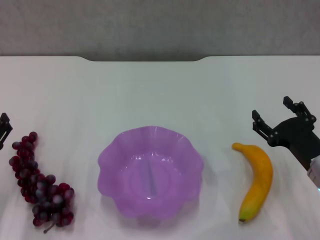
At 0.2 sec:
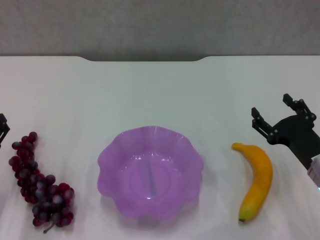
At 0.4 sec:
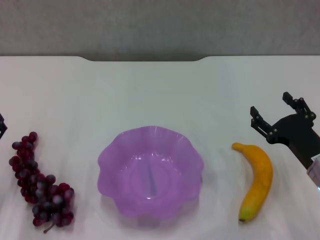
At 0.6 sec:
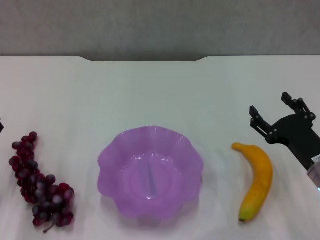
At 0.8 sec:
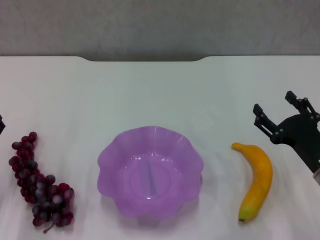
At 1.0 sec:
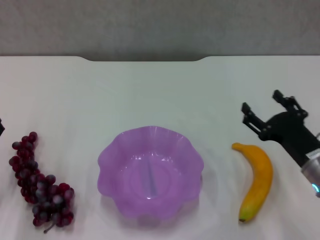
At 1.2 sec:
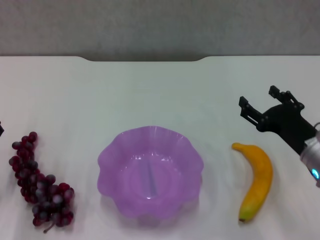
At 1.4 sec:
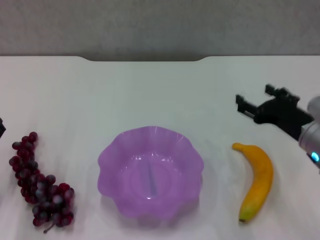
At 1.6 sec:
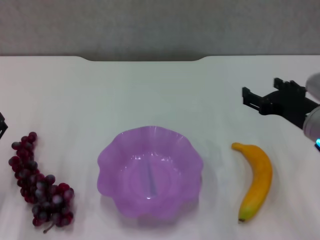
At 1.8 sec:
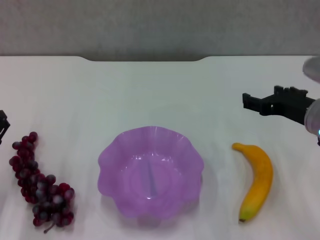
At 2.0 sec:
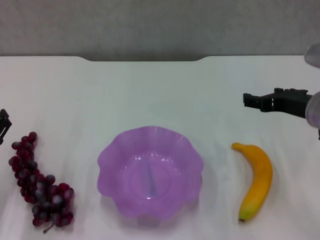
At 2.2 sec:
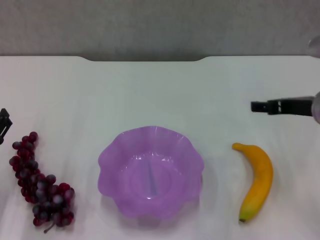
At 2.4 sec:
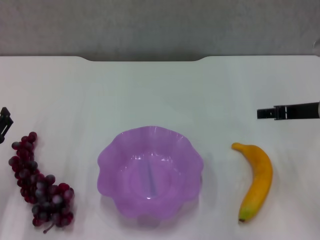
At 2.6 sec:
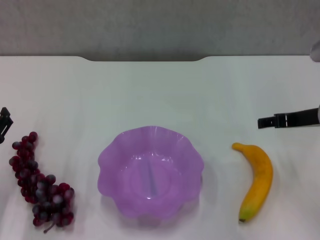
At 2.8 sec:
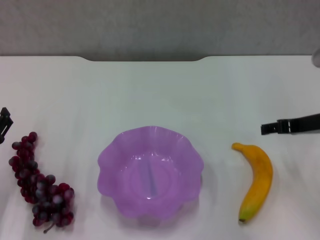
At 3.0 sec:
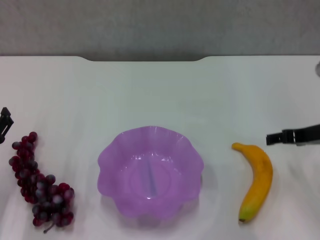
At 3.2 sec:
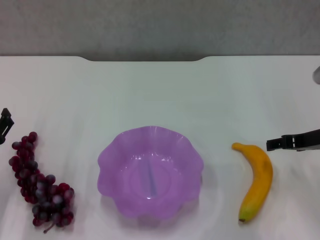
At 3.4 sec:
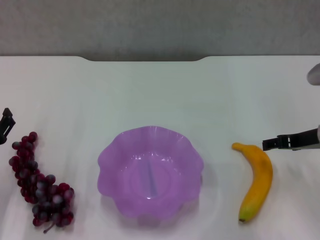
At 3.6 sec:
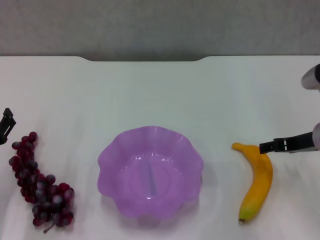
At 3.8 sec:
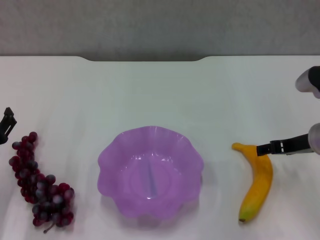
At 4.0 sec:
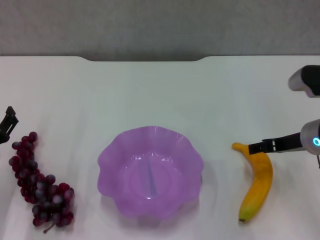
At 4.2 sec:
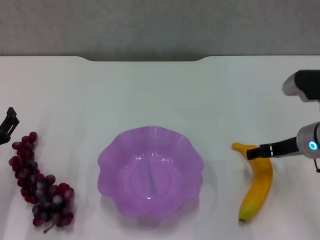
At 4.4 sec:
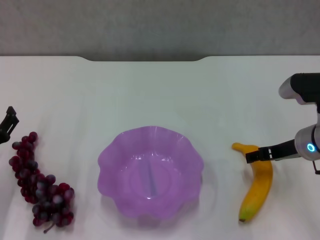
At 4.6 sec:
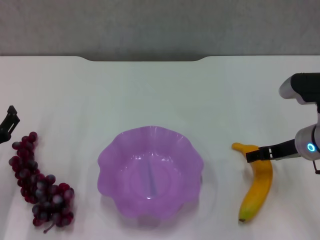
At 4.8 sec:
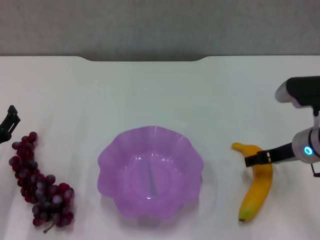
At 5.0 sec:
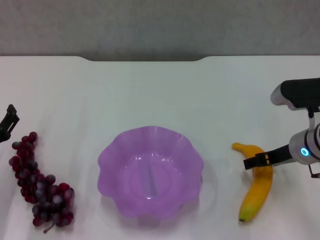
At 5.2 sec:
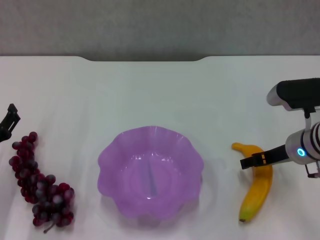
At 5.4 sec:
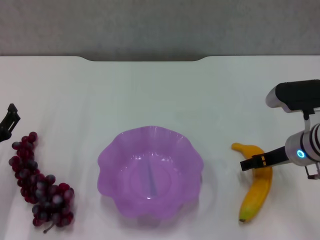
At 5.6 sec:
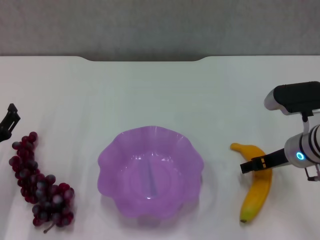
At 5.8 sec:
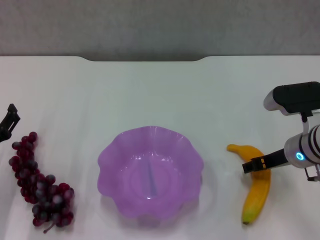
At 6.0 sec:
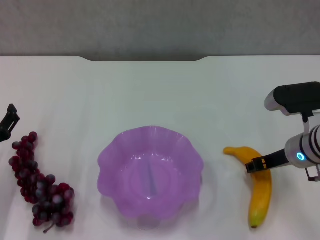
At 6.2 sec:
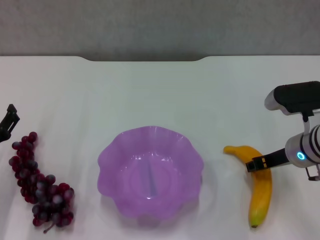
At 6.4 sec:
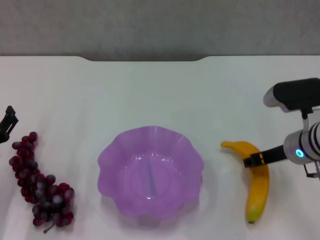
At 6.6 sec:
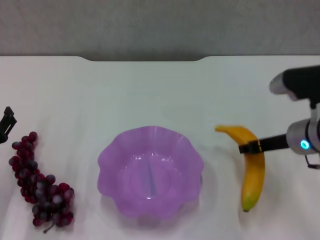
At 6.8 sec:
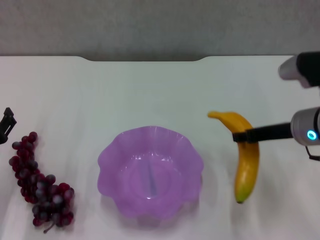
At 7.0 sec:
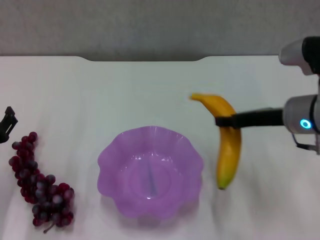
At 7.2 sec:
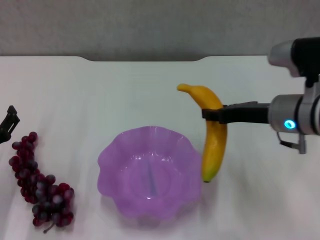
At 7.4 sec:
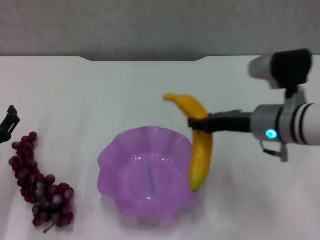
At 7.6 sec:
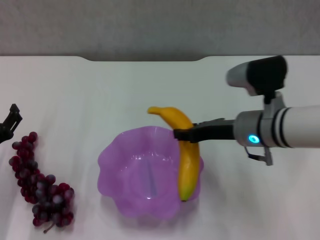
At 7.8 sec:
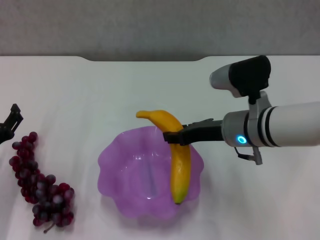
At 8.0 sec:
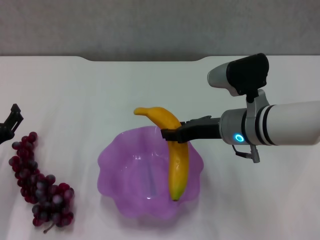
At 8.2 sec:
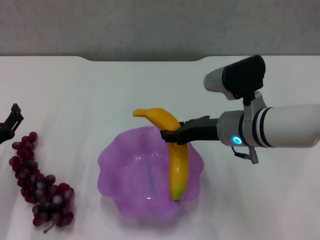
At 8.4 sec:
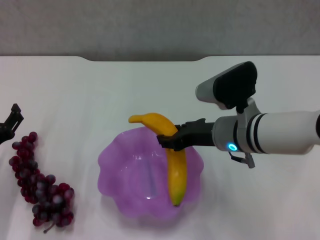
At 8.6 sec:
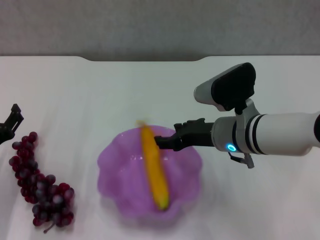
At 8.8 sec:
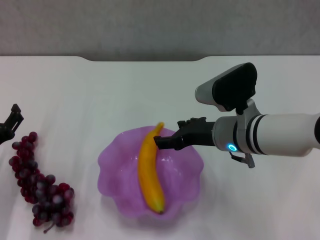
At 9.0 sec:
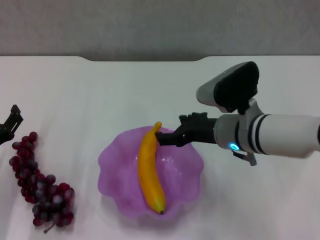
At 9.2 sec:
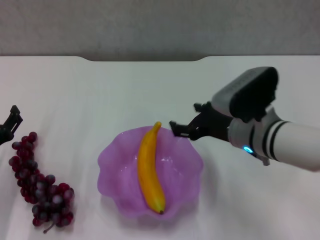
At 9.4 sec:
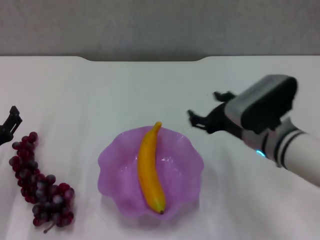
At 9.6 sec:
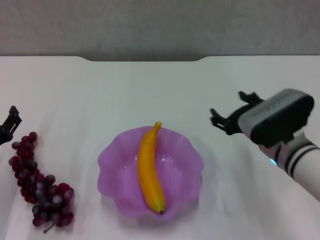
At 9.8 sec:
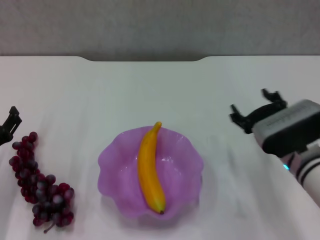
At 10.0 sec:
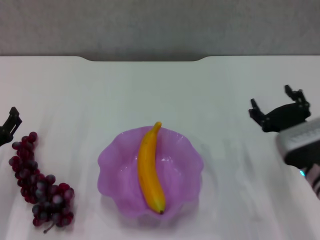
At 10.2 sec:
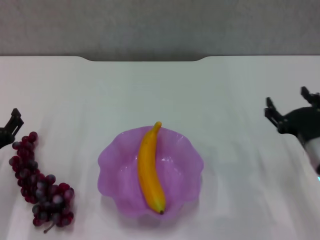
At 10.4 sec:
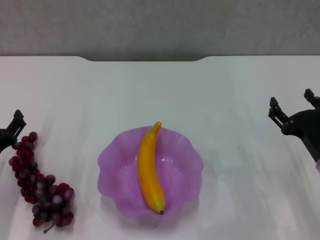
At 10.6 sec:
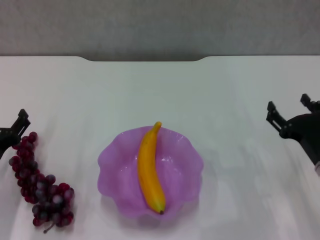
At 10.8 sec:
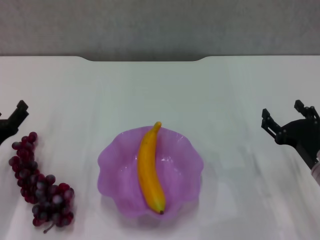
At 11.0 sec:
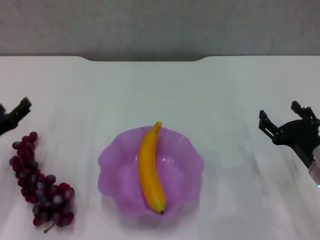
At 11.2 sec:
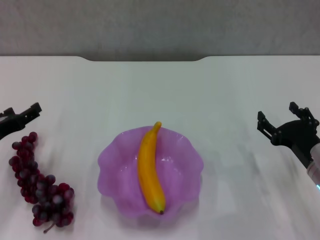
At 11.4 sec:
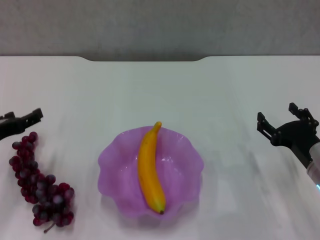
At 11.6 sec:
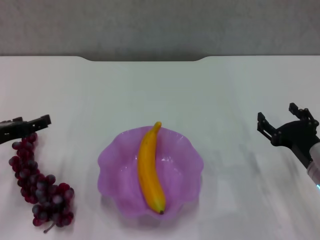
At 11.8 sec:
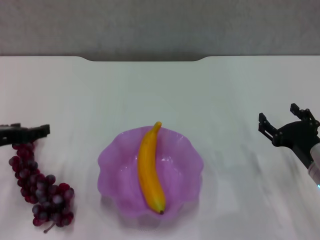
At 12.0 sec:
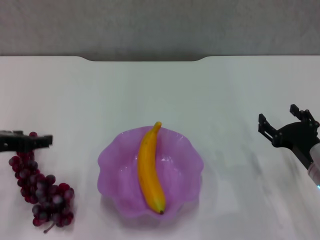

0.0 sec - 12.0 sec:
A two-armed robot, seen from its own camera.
Step, 0.0 sec - 6.0 sec: Grasp the banana with right gripper.
Step, 6.2 sec - 8.8 sec: Place the banana in the purple plate with right gripper.
0.0 sec - 1.6 sec: The right gripper moves upward, about 10 cm, and opens its fingers.
1.6 sec - 3.0 sec: The right gripper moves roughly 5 cm.
3.0 sec - 4.4 sec: The right gripper moves about 5 cm.
4.4 sec - 6.0 sec: The right gripper closes up.
6.0 sec - 7.6 sec: The right gripper travels to the left by about 10 cm, and closes.
7.6 sec - 9.0 sec: The right gripper opens up.
9.0 sec - 10.4 sec: The right gripper heads to the right, backward and downward, covering roughly 15 cm.
10.4 sec - 12.0 sec: The left gripper goes about 15 cm upward.

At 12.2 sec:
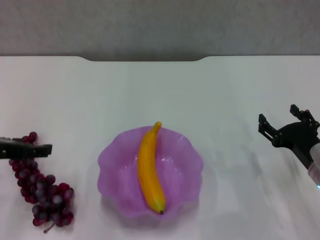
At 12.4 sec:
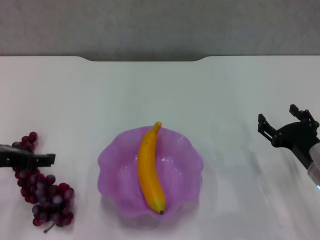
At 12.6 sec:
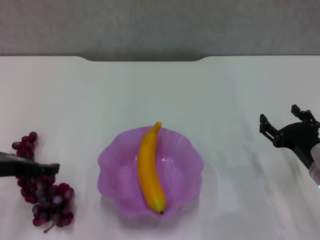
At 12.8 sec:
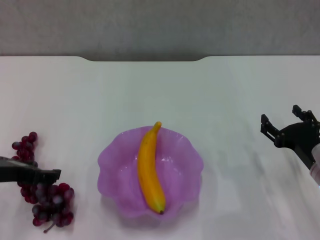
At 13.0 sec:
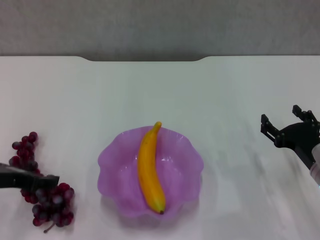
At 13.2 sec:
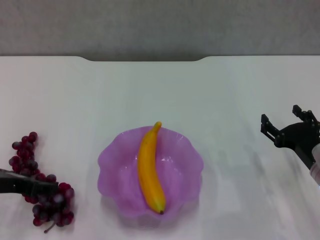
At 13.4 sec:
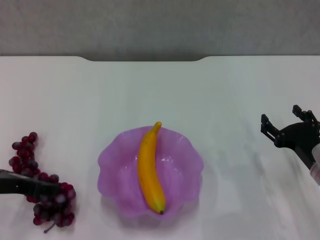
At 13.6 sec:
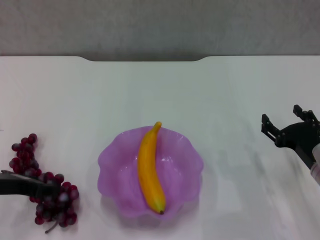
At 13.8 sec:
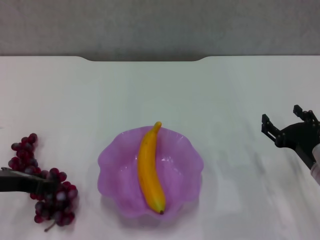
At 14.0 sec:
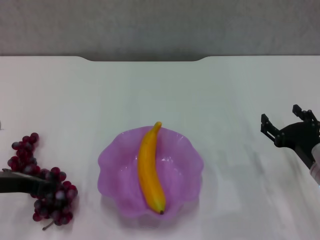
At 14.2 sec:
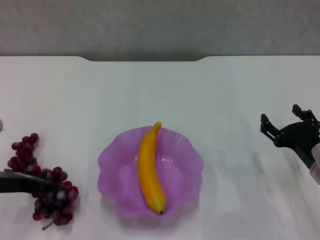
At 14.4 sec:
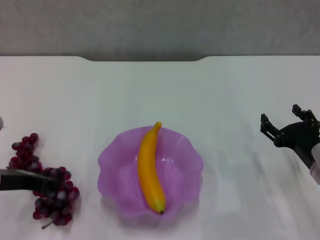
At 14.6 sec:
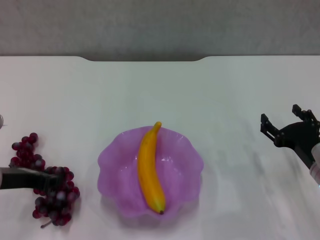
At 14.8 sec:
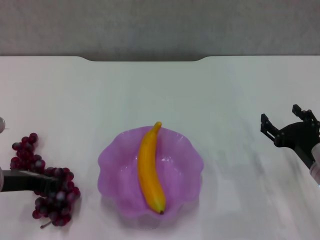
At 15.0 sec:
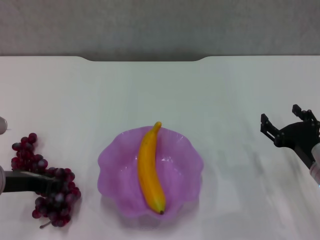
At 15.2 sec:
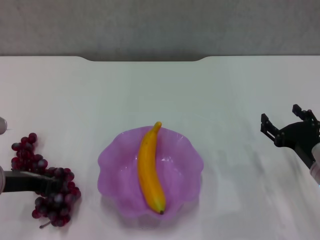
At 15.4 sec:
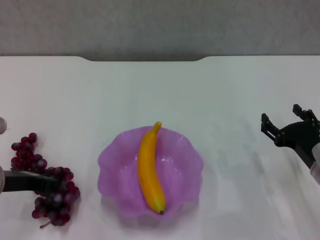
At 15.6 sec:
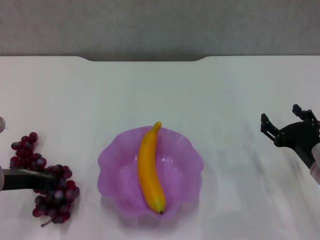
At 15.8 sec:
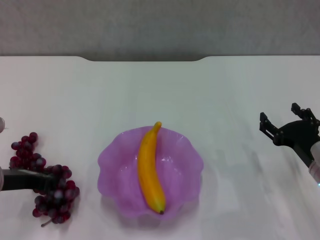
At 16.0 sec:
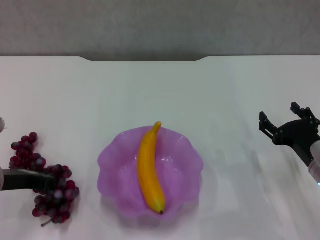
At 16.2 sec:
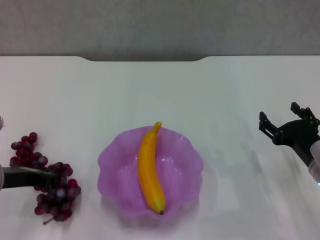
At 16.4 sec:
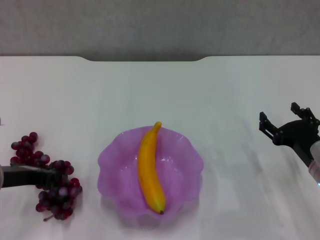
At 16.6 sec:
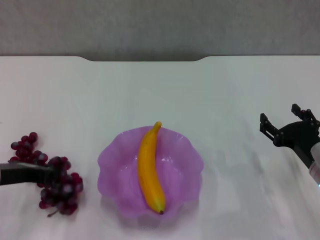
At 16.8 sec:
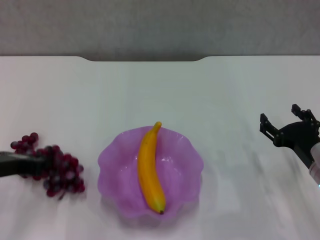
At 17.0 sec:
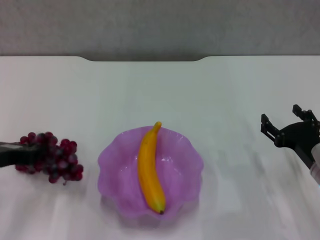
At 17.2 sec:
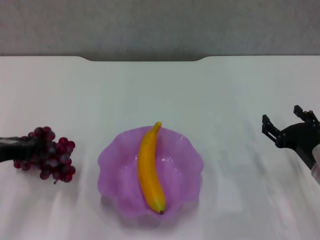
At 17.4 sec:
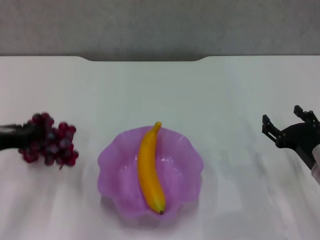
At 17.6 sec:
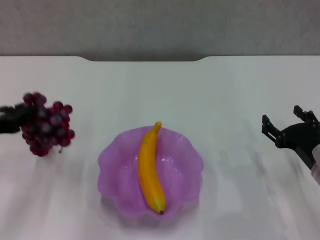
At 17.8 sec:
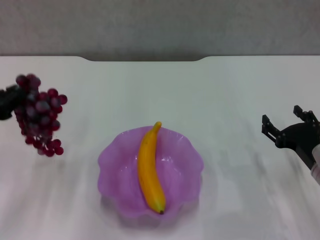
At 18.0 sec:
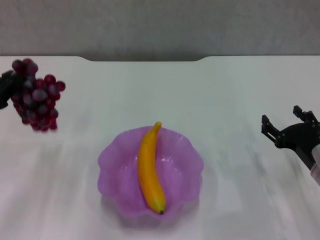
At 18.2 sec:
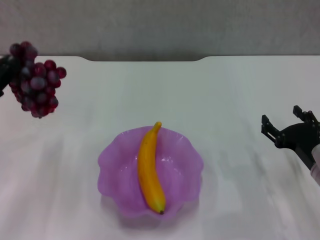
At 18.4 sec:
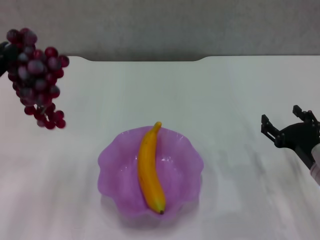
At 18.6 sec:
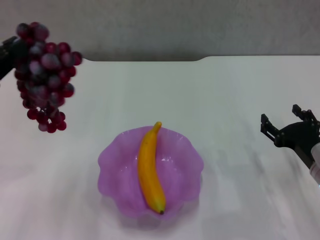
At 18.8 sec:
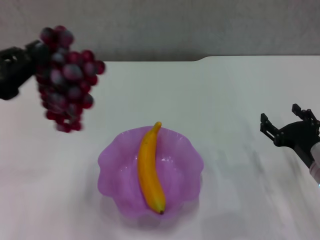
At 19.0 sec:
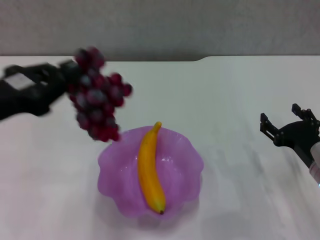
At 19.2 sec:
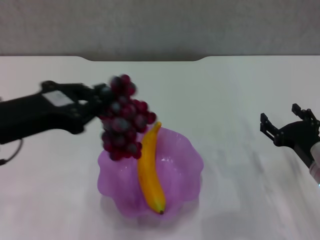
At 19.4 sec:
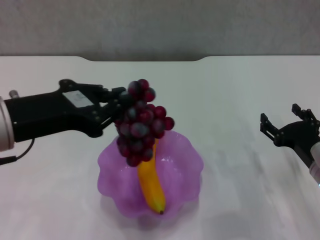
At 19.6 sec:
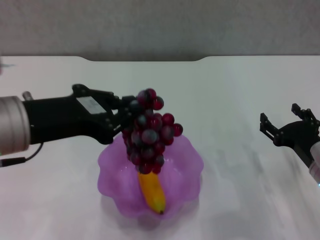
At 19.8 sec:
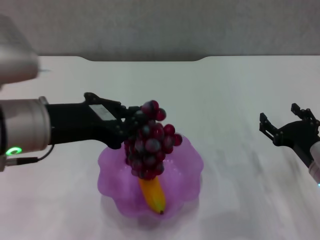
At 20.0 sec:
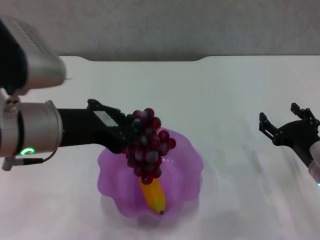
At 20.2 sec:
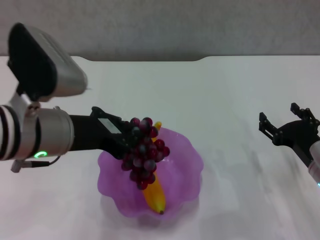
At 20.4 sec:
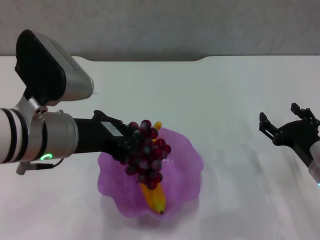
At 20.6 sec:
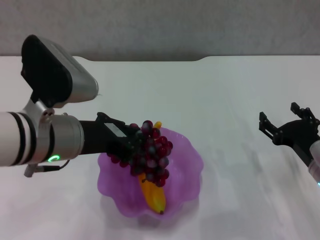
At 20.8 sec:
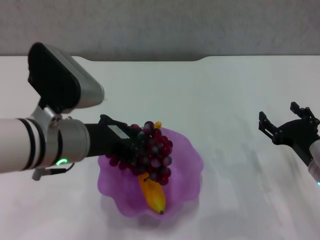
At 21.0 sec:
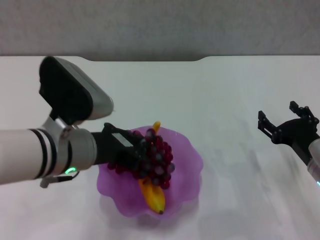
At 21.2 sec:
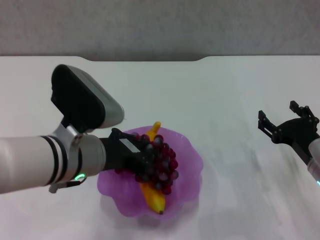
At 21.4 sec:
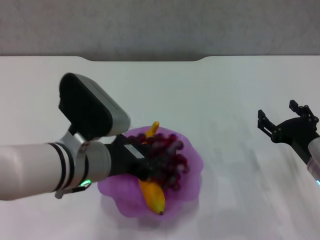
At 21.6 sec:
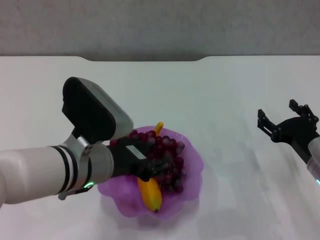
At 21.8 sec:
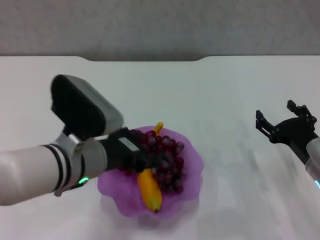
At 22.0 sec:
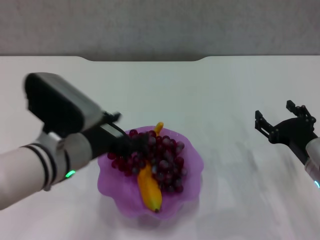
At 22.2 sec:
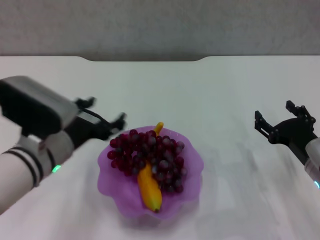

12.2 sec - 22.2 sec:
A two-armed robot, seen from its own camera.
Step, 12.2 sec - 16.0 sec: Grasp the grape with left gripper.
Step, 16.2 sec - 22.0 sec: Place the grape in the purple plate with left gripper.
12.2 sec - 13.6 sec: The left gripper ends up about 5 cm from where it was.
13.6 sec - 15.0 sec: The left gripper closes up.
15.0 sec - 16.4 sec: Both grippers stay put.
16.4 sec - 18.0 sec: The left gripper travels upward by about 10 cm.
18.0 sec - 19.4 sec: The left gripper shifts approximately 10 cm to the right and upward.
19.4 sec - 20.8 sec: The left gripper is displaced to the right and downward by roughly 10 cm.
20.8 sec - 22.2 sec: The left gripper shifts about 5 cm downward, and opens.
